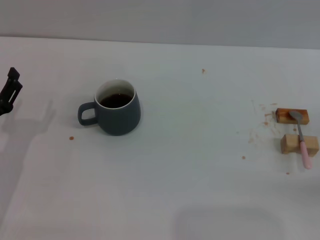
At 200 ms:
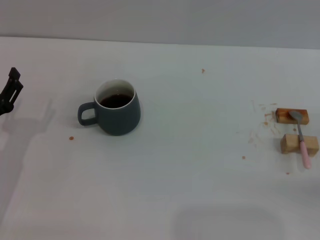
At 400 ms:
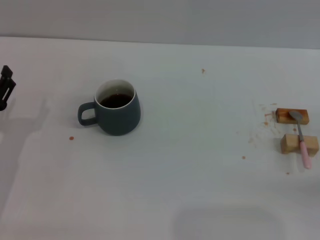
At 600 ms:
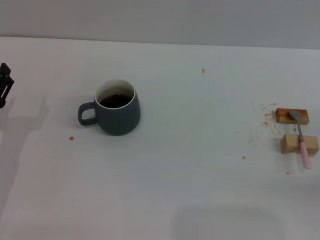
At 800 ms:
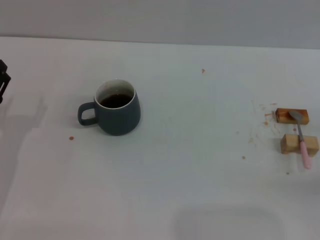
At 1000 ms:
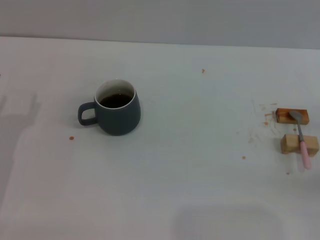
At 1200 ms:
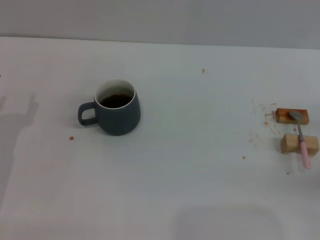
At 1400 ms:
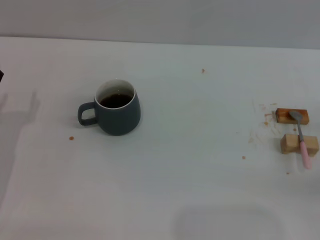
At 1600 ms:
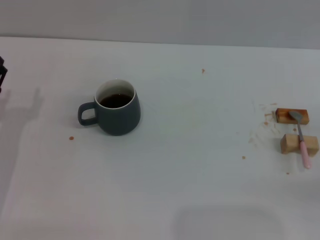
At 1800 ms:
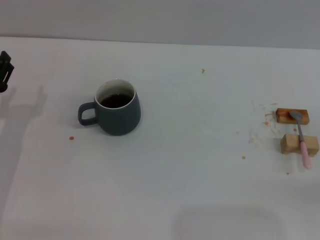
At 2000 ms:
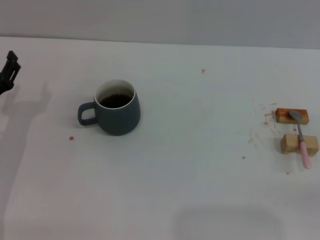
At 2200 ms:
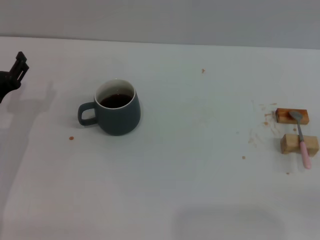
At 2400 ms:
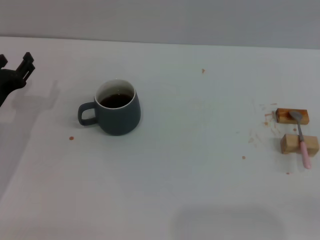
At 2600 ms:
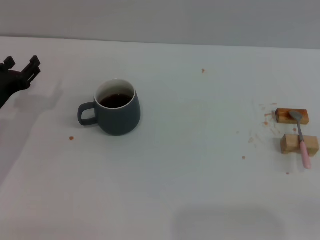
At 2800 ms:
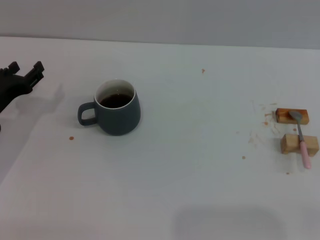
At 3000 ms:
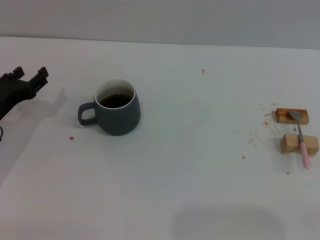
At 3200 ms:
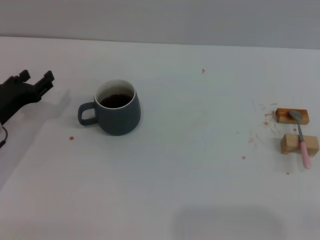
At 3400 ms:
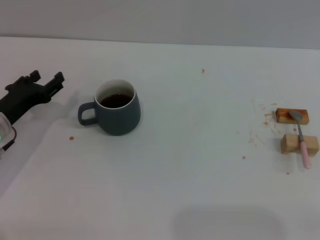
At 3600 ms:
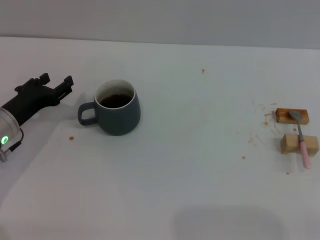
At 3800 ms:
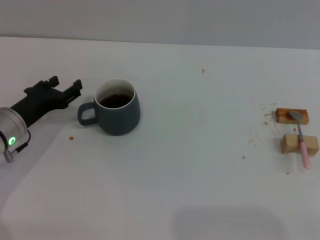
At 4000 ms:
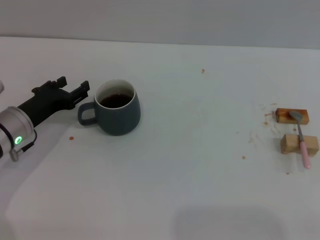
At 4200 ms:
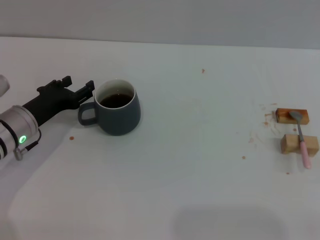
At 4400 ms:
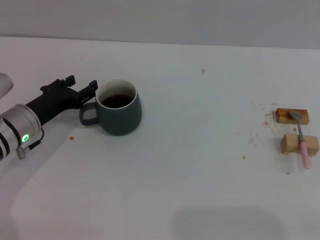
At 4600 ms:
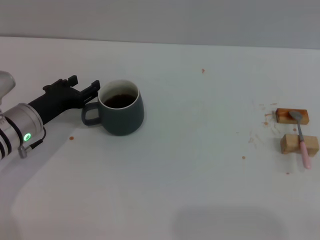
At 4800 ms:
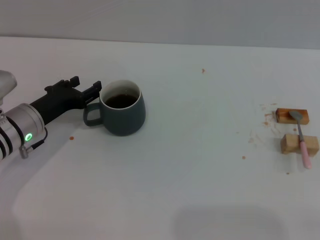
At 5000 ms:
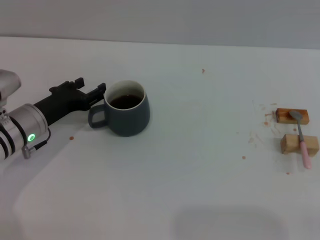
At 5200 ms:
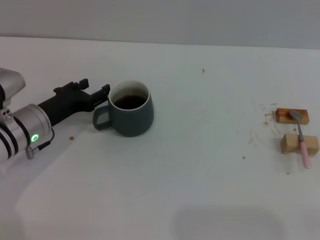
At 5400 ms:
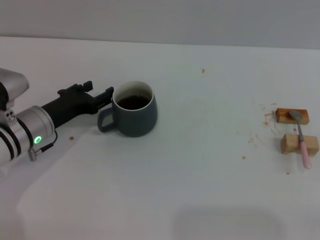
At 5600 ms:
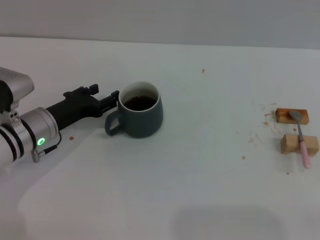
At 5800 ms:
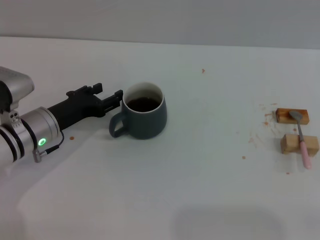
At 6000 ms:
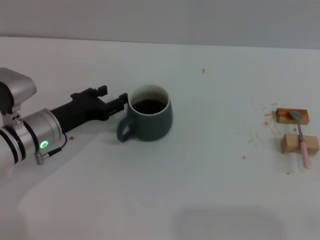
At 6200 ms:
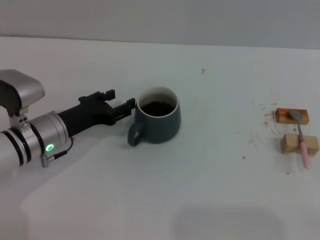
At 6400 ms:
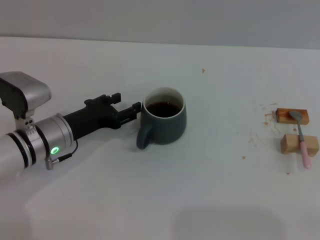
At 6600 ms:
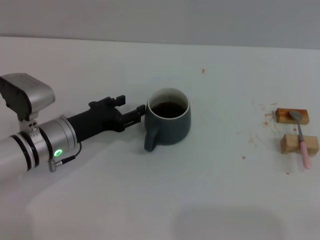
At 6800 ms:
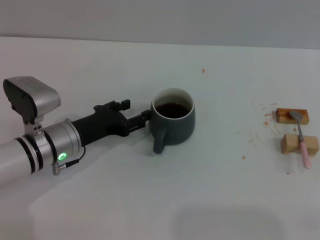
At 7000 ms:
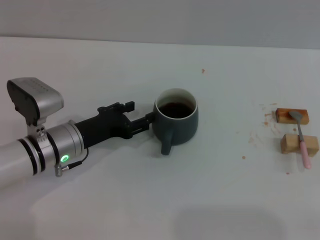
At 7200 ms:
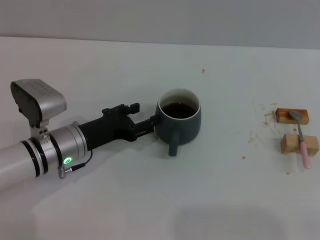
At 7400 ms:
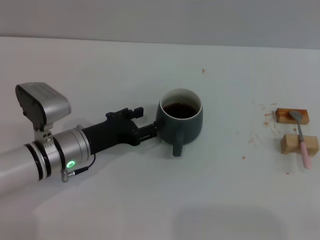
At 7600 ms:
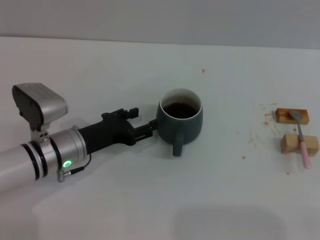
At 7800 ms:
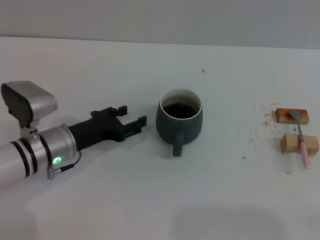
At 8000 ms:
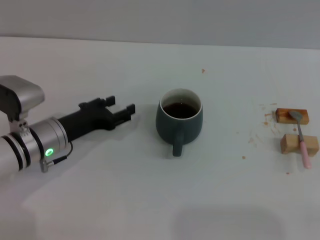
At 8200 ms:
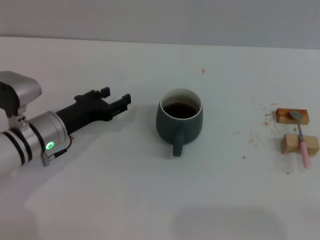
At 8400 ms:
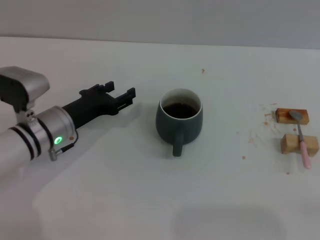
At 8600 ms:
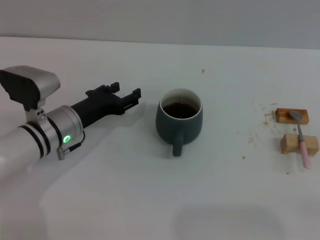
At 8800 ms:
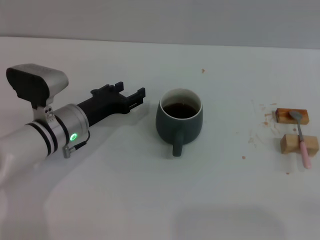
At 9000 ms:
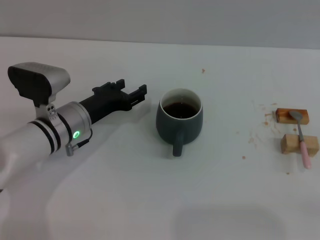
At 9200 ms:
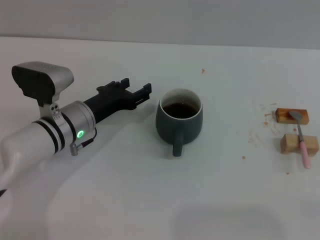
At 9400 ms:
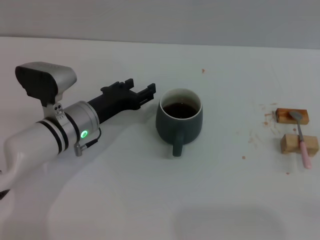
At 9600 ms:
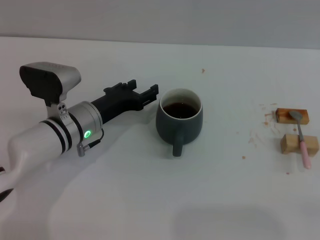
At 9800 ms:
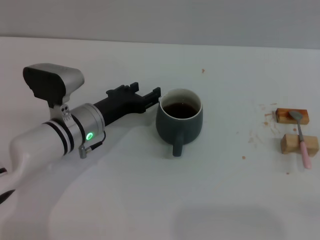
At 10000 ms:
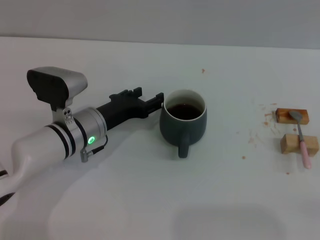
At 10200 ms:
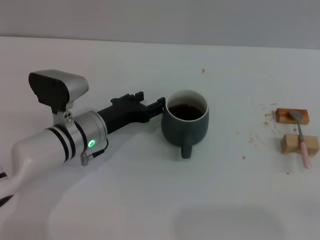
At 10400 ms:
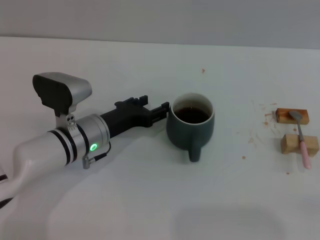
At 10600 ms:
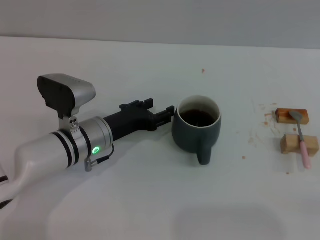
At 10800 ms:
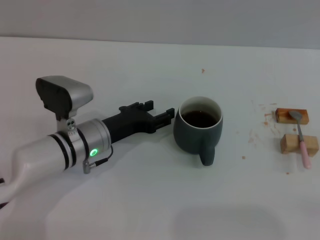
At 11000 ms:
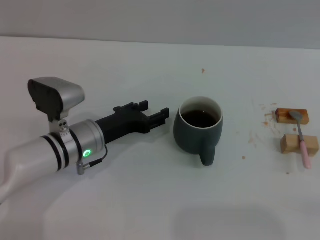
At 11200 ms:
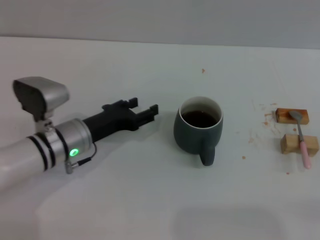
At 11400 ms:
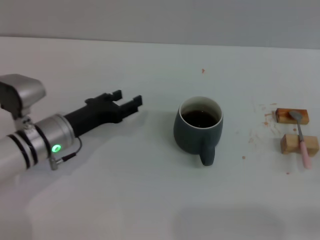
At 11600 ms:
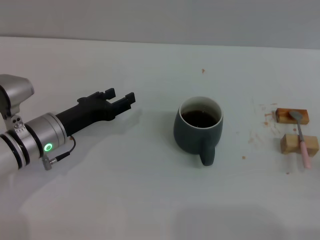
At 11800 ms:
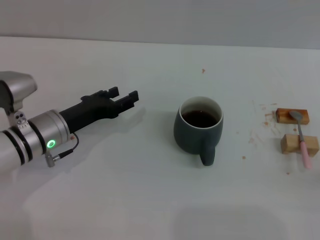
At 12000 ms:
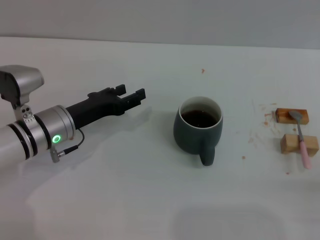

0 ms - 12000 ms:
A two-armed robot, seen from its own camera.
Task of the whole recording: Move the grey cup to the center, lift the pink spoon, stir it three times in the cup, and put the spoon into the cup.
Step, 0 ms - 10800 ms: Move the cup with coffee to the center of view with the left gripper.
0 ms - 1600 ms: There are only small adjustments of the grippers.
3000 ms - 4400 ms: The left gripper is displaced to the right by some 5 cm.
4400 ms - 6000 ms: The grippers make only small movements.
6000 ms - 9000 ms: The grippers make only small movements.
9000 ms - 10400 ms: The grippers stay close to where they were, moving slightly.
10400 ms - 12000 ms: The right gripper goes about 10 cm backward and to the left; the left gripper goes about 5 cm to the left.

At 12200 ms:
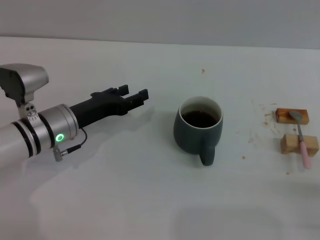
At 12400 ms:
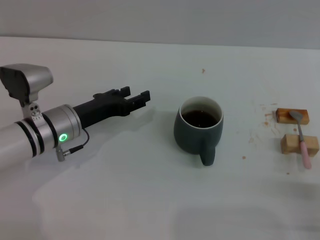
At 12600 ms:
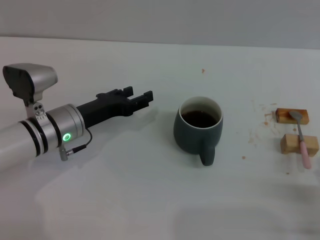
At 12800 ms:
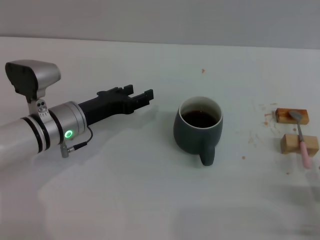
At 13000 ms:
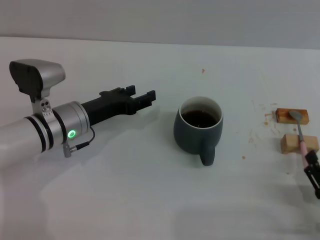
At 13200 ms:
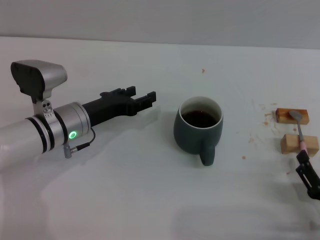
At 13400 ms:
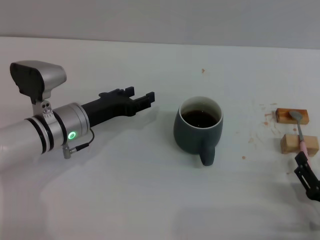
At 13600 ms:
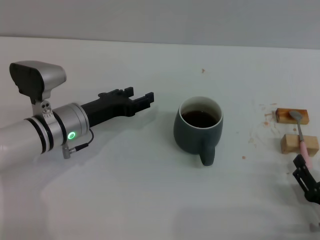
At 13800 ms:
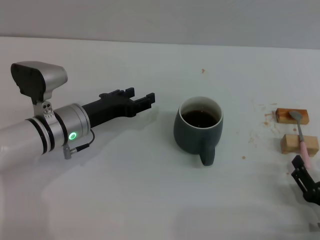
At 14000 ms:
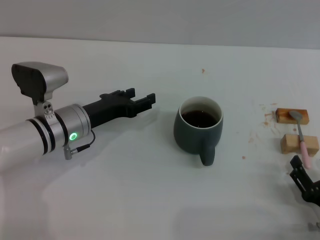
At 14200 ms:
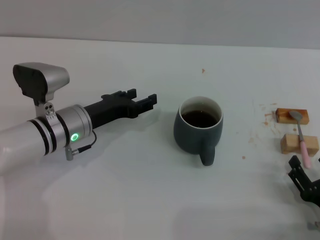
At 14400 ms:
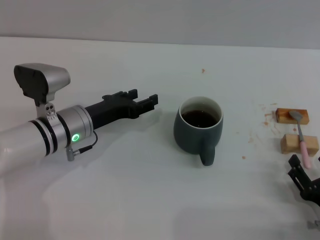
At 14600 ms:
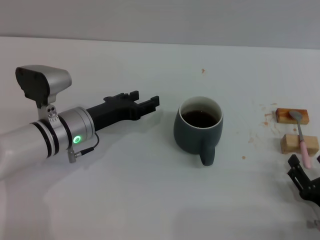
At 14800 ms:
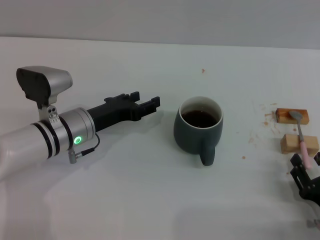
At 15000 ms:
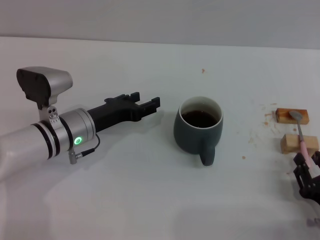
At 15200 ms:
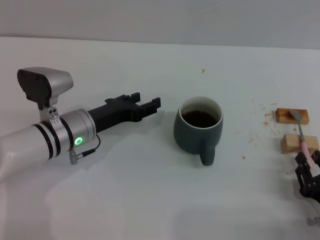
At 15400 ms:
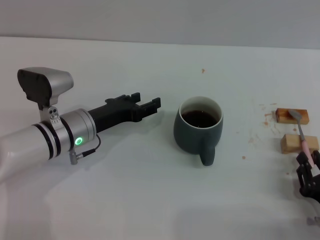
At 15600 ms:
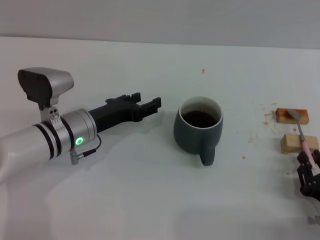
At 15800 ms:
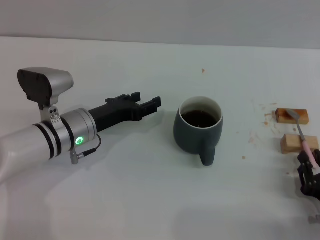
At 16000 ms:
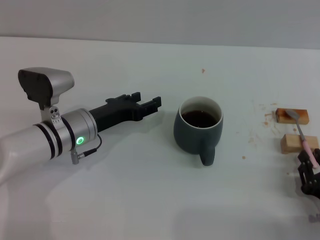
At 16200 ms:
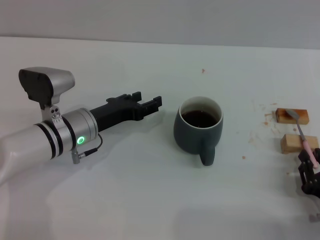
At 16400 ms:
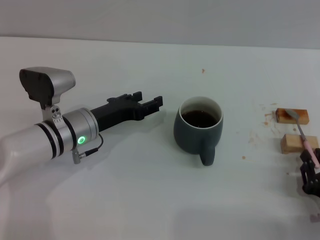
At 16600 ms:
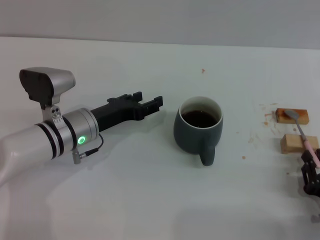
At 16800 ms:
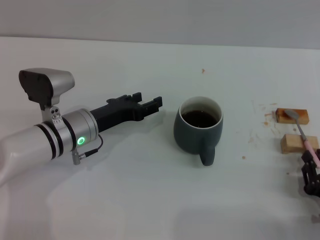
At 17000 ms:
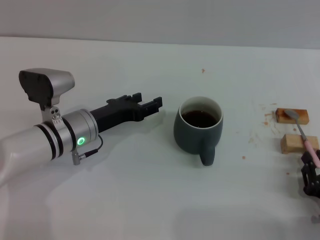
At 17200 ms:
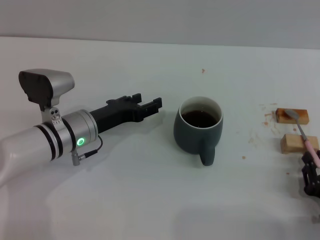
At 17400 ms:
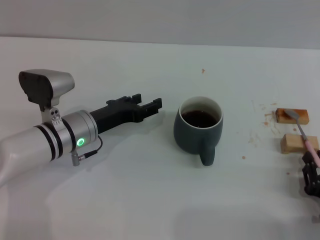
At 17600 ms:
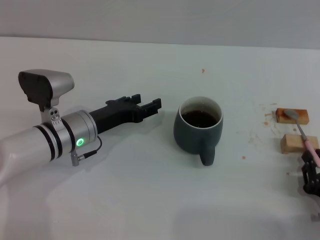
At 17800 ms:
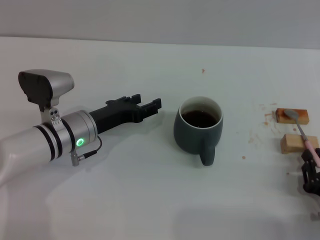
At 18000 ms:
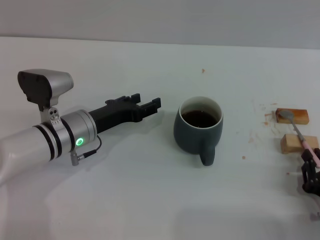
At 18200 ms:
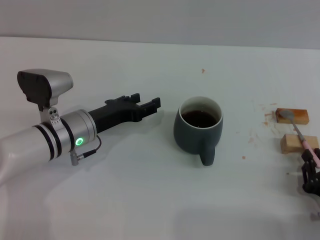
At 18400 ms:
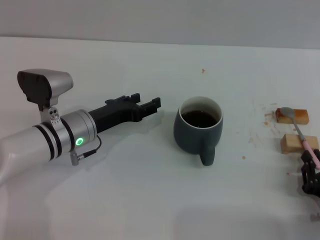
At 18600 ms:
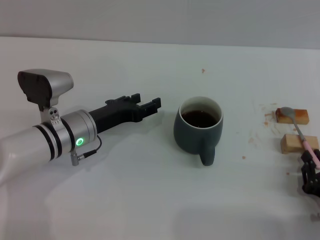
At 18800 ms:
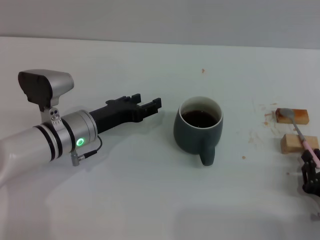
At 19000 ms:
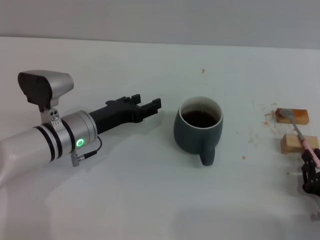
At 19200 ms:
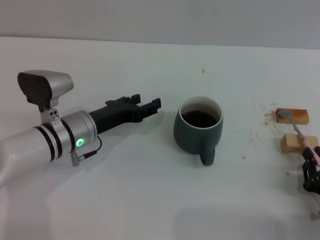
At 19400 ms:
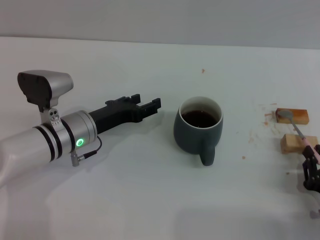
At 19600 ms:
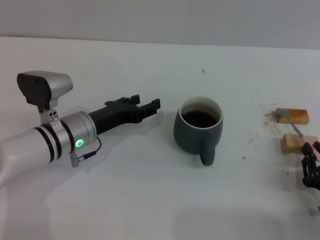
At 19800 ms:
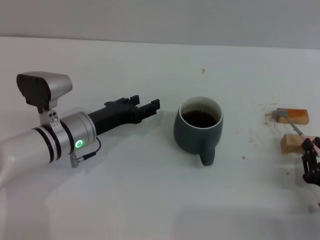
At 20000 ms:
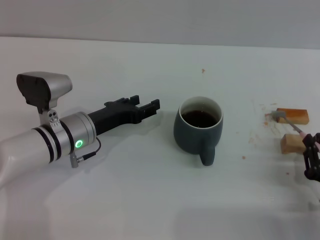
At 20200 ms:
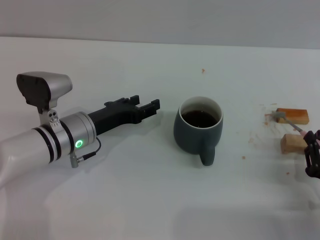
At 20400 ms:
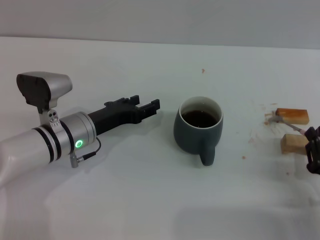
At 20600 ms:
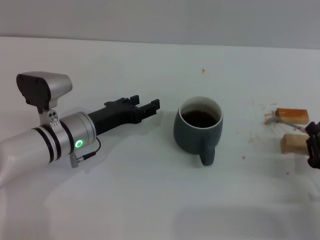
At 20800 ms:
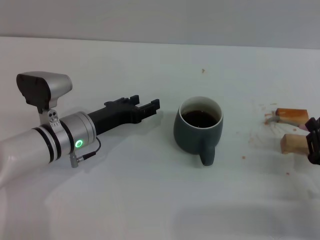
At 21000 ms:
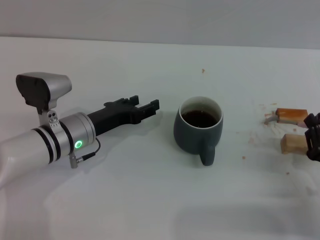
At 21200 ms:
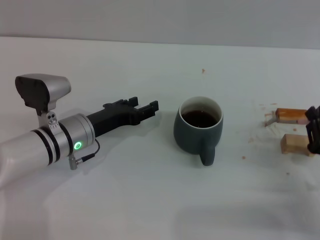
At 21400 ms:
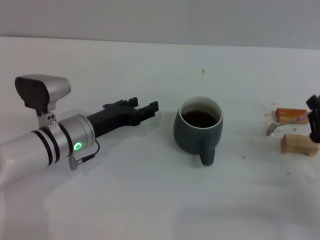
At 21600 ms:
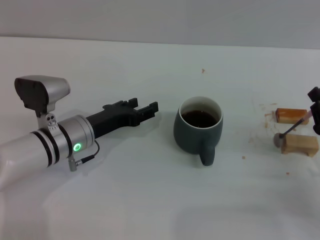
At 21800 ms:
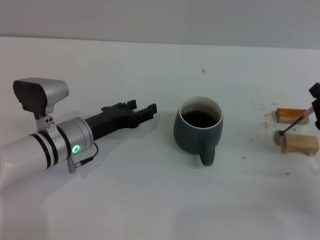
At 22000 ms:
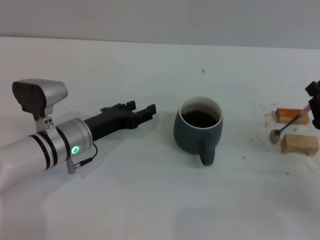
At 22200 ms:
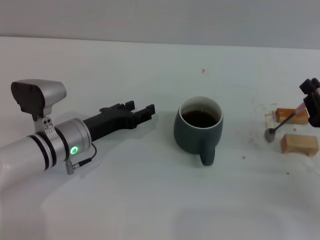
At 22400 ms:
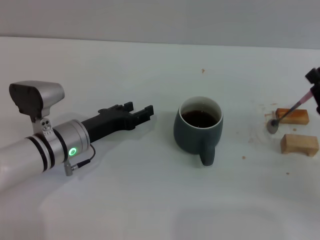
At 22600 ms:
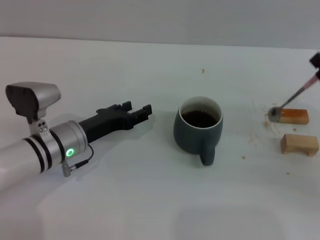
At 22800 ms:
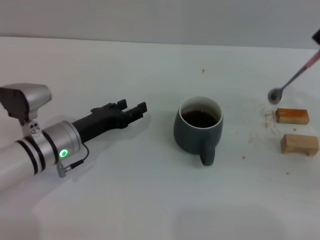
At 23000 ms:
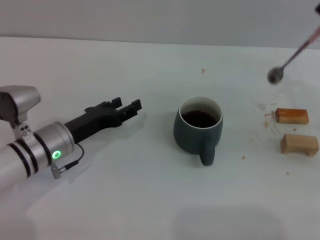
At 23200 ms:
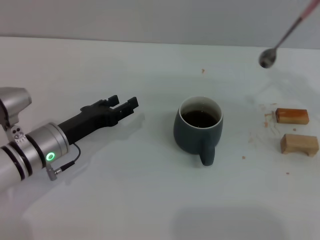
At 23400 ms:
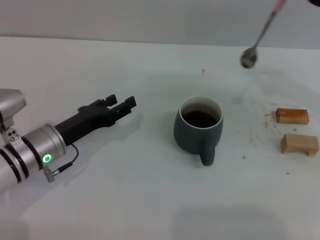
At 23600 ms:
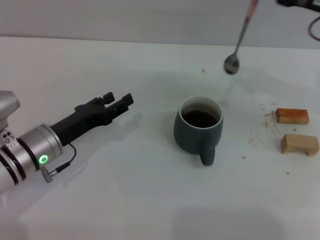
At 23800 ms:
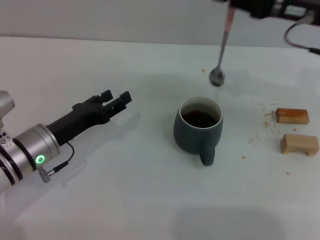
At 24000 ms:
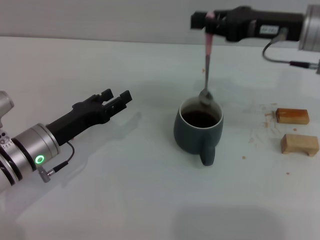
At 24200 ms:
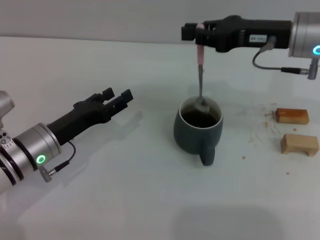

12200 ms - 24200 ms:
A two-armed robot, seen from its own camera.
Task of the whole recording: Move the grey cup to the center, lift the pink spoon, stir it three times in the cup, and put the spoon into the cup.
Step, 12200 ms - 22400 ms: Pick up the spoon with the right gripper.
12200 ms - 13800 ms: The right gripper ends up some 5 cm from where it was.
13800 ms - 15200 ms: The right gripper closes up.
15200 ms - 18200 ms: Neither gripper changes place.
18200 ms - 19800 ms: Both grippers stay about where they are.
19800 ms - 21200 ms: There are only small adjustments of the grippers.
21200 ms - 22600 ms: The right gripper heads forward and upward, covering about 10 cm.
22600 ms - 24200 ms: The right gripper shifts about 20 cm forward, upward and to the left.
